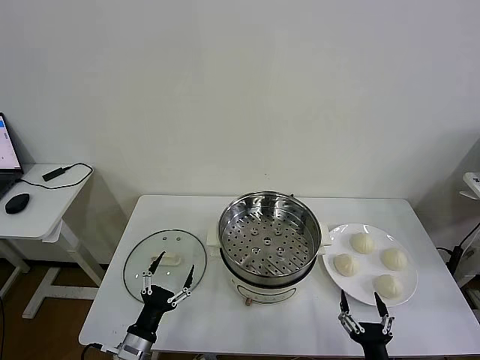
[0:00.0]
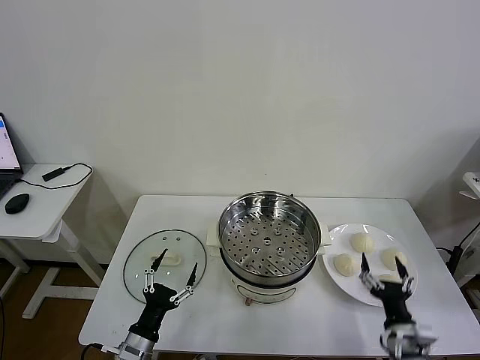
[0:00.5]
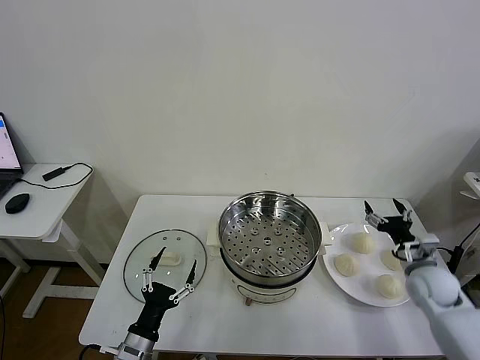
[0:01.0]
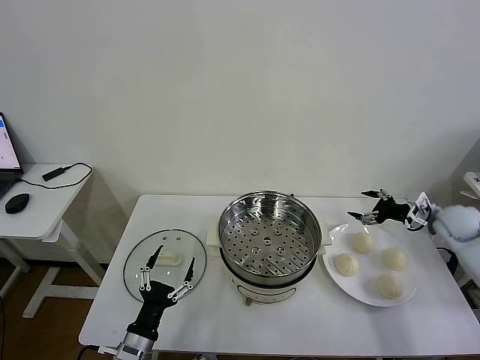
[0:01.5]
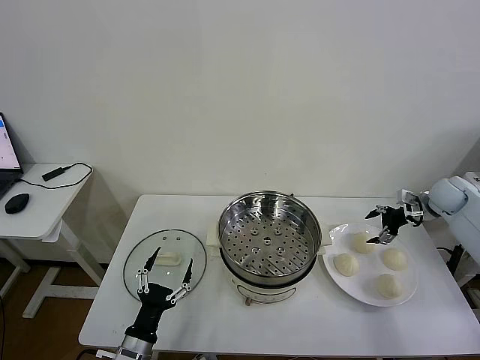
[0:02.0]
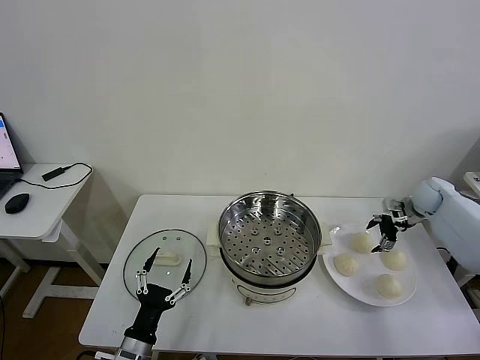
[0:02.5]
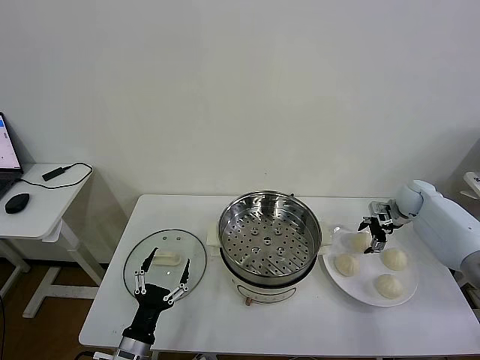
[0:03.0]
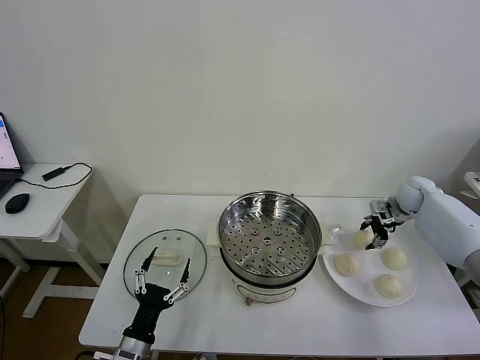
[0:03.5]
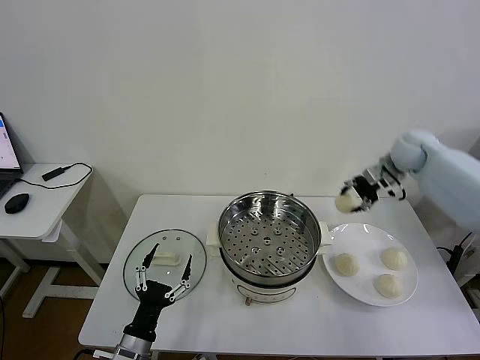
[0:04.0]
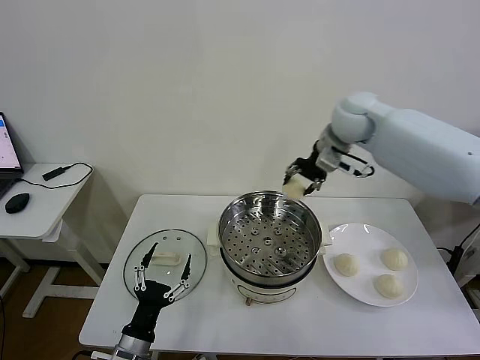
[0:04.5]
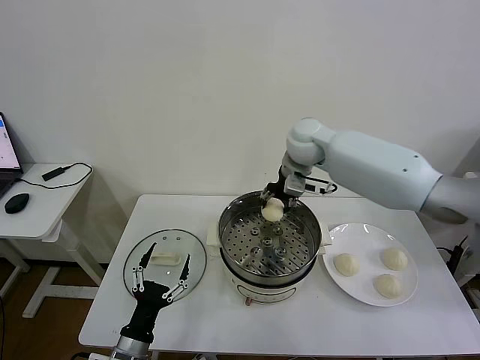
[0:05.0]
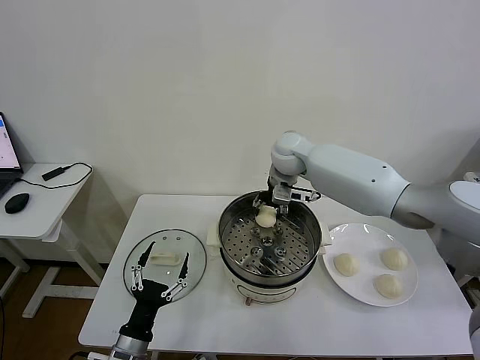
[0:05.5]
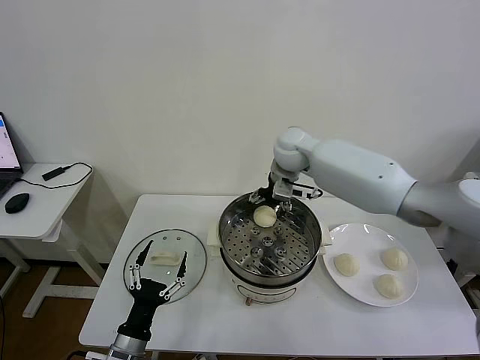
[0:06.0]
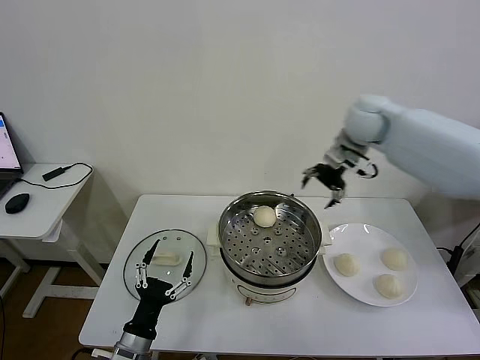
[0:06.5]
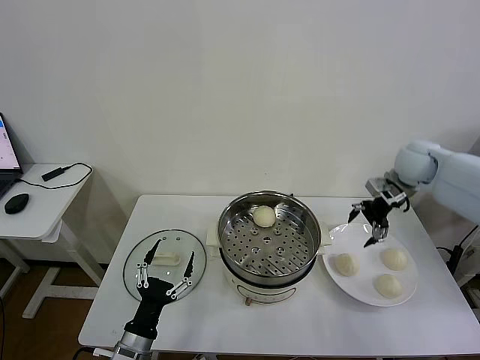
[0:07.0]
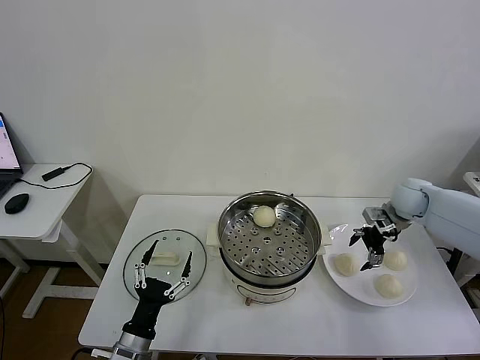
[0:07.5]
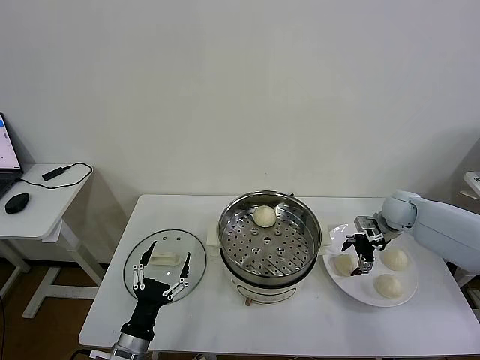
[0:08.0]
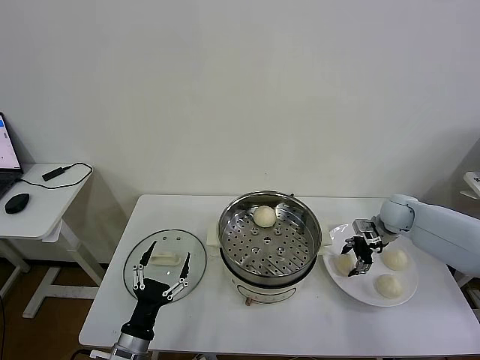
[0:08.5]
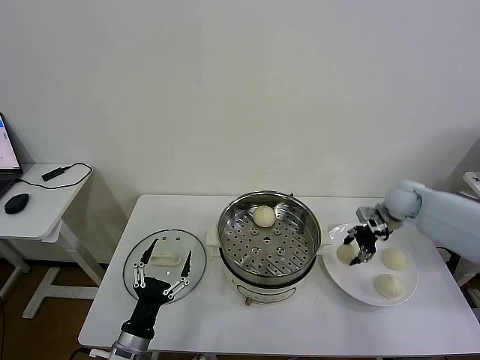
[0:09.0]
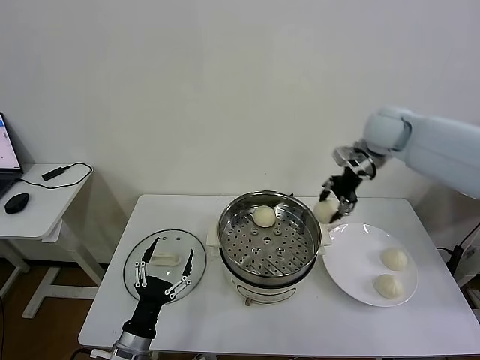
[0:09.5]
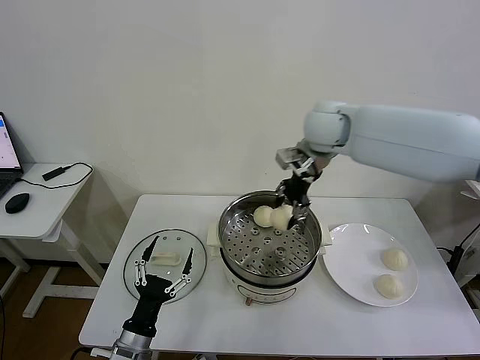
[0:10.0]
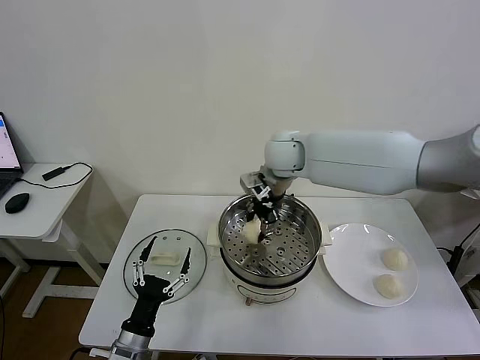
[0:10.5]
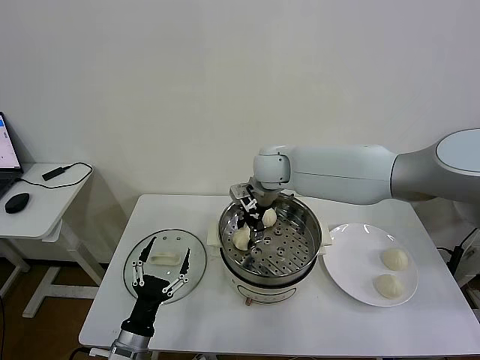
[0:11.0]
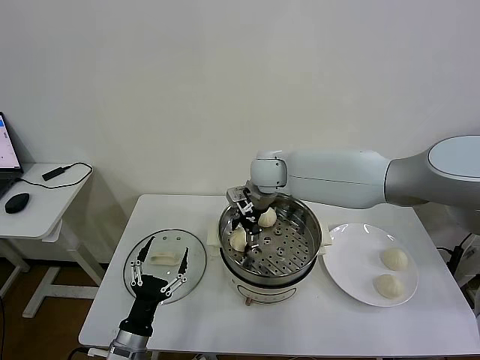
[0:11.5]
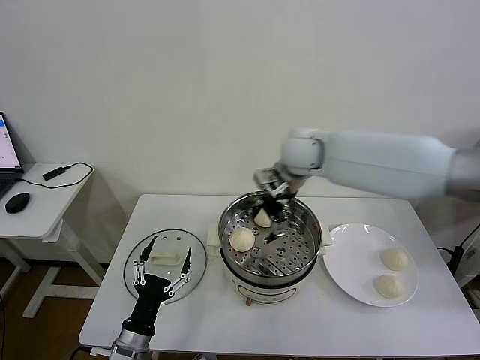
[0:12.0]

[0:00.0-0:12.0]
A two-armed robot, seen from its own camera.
Task of the whole recording: take steamed baozi put them in steamer then cover it.
Step, 0:00.0 to 0:03.0: Grasp the baozi in the plate with right gripper.
Step, 0:03.5 to 0:05.5: Place the baozi on the steamer with right gripper.
Step, 0:06.0 to 0:08.5: Grasp the baozi in the plate with right gripper.
Step, 0:09.0 to 0:11.5: Place the baozi on the steamer with right gripper.
0:02.0 to 0:04.0: The right gripper is displaced to the left and upward by some 20 cm, and closes.
0:04.0 to 0:06.0: The right gripper goes approximately 25 cm to the left, and opens its fingers.
0:06.0 to 0:08.0: The right gripper is displaced to the right and downward by about 35 cm.
0:08.0 to 0:10.0: The right gripper is displaced to the left and upward by some 35 cm, and closes.
0:10.0 to 0:12.0: The right gripper goes downward and returns, about 10 cm each way, and opens its fingers.

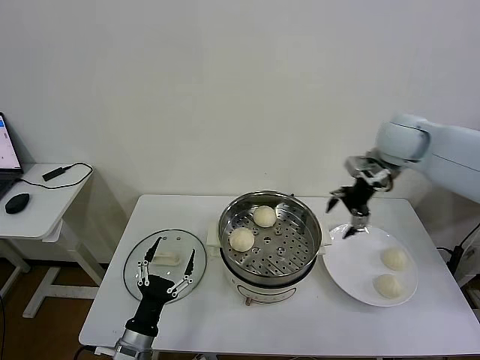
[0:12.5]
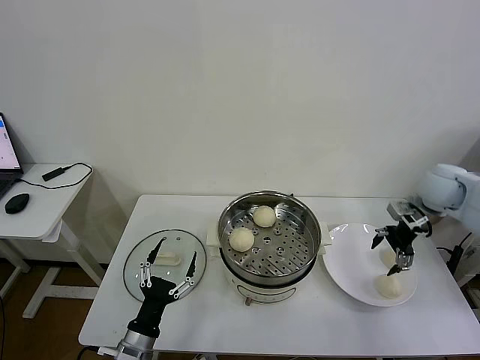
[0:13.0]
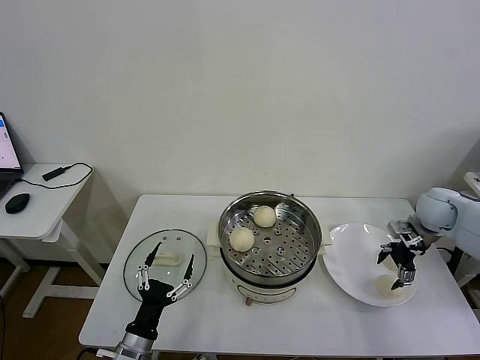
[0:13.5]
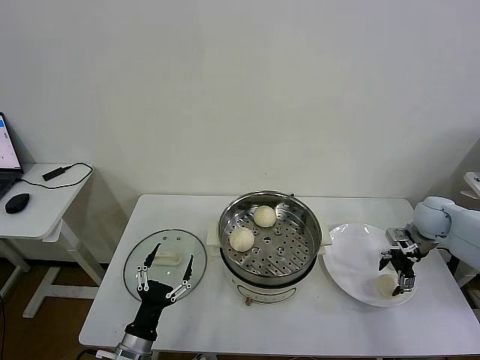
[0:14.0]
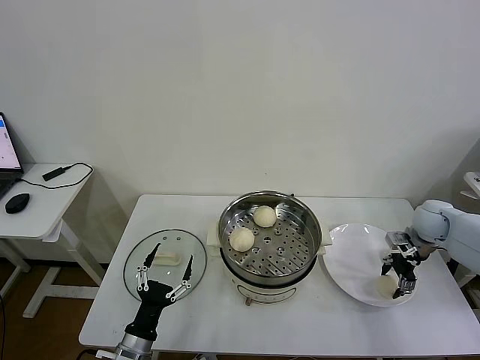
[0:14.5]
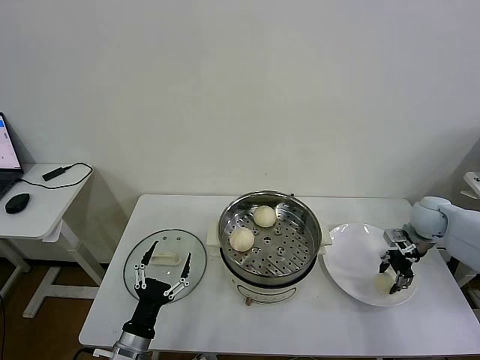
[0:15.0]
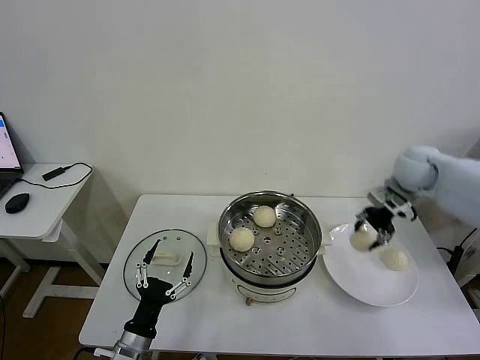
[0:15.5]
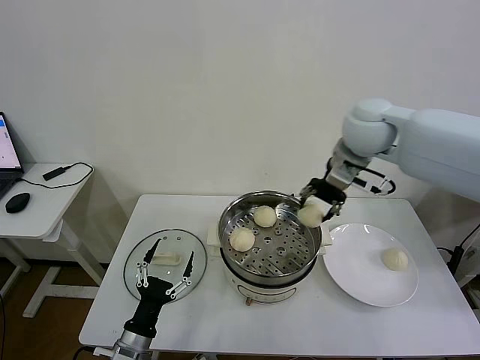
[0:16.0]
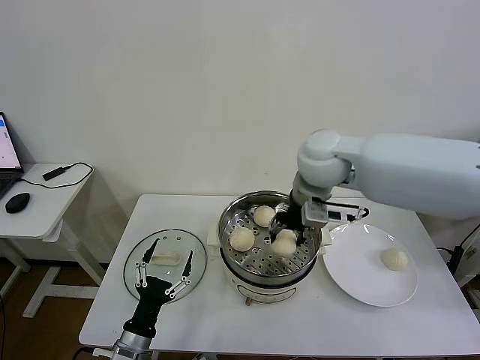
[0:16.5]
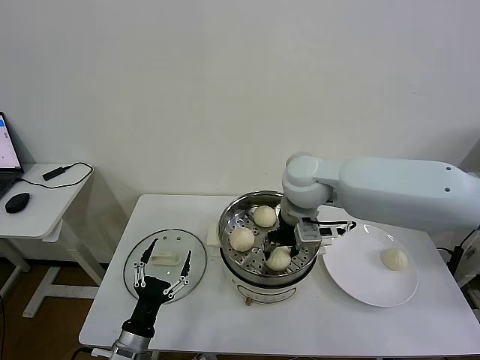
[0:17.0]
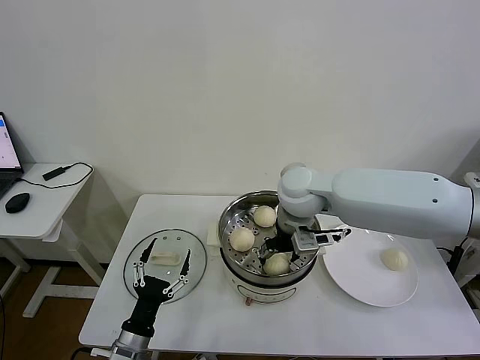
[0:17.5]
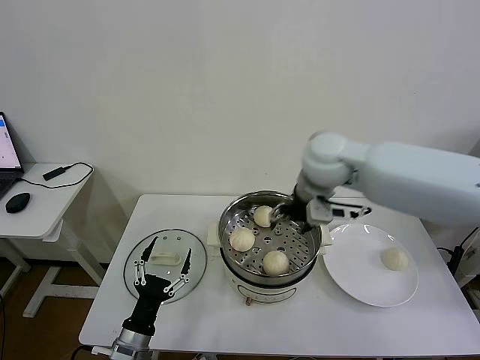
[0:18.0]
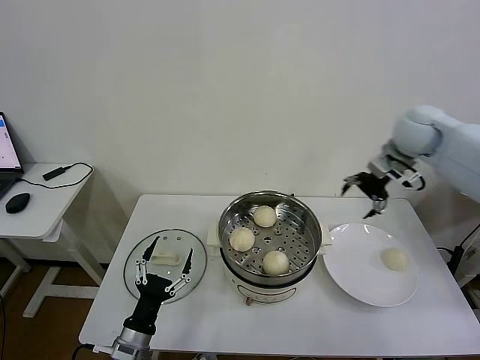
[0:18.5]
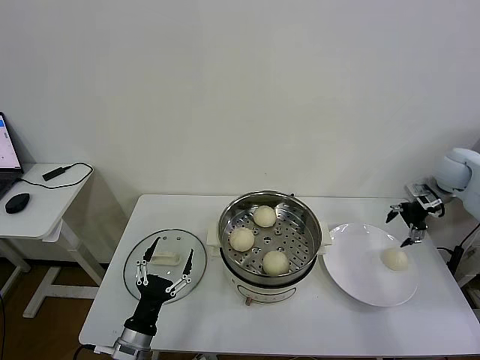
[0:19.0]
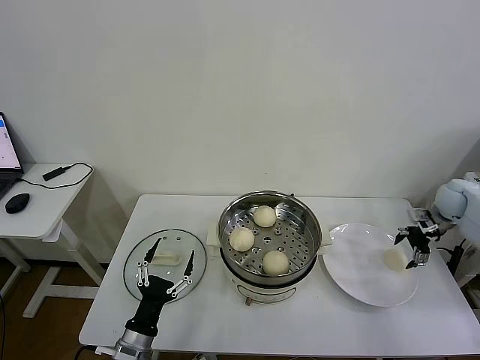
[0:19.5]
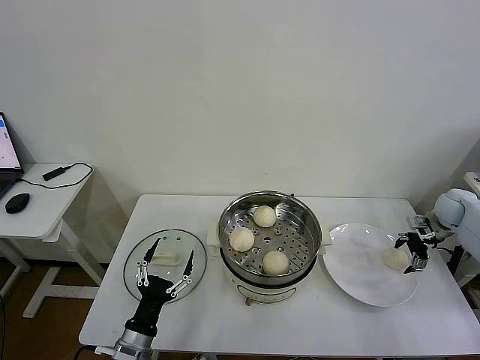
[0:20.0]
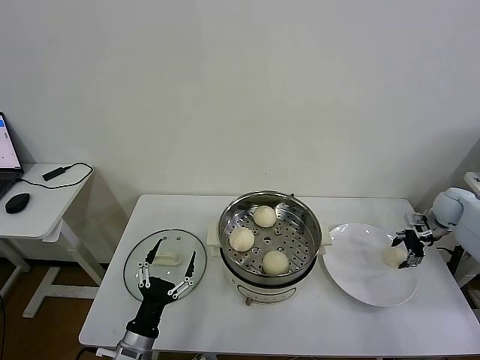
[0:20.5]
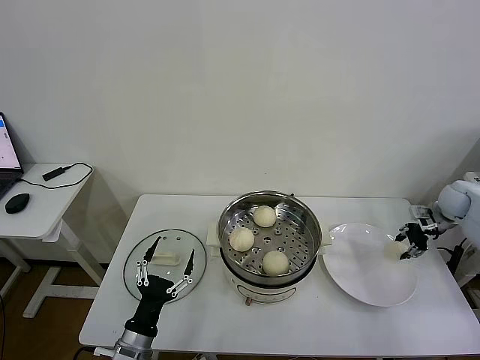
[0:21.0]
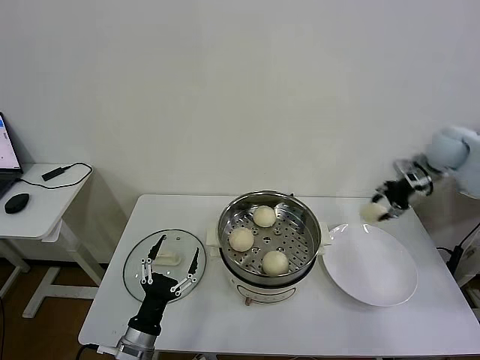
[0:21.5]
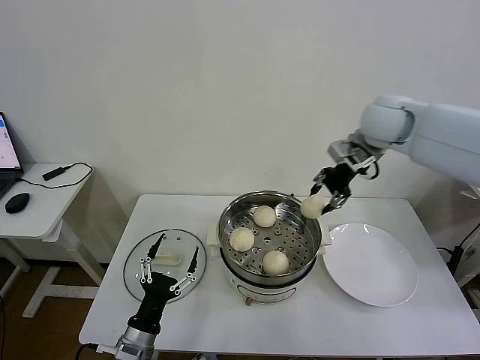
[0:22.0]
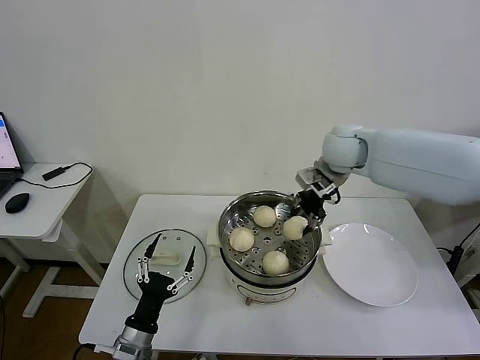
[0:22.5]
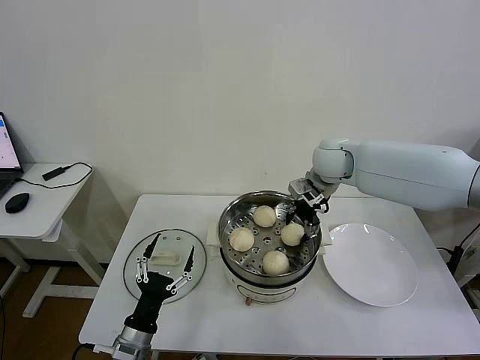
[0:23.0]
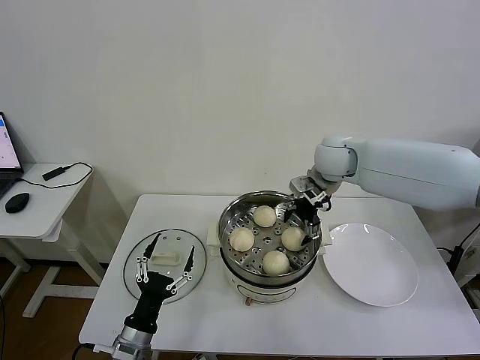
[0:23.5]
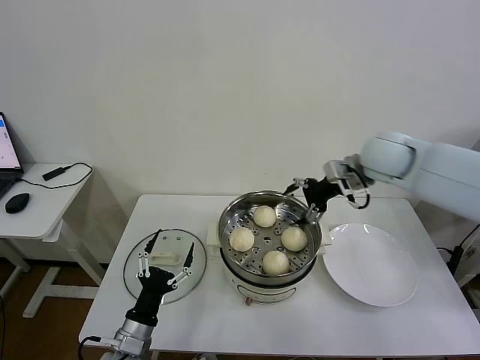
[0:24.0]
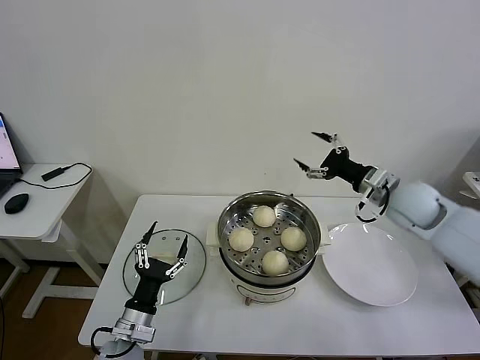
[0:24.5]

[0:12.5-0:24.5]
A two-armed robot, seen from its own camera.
Task of the whole recording: take steamed baozi put them in steamer then cover it.
Step, 0:12.5 to 0:14.5: Grasp the baozi in the plate with right gripper.
Step, 0:15.0 to 0:17.5: Place the baozi on the steamer with right gripper.
Step, 0:18.0 to 0:20.5: Grasp the baozi in the plate with right gripper.
Step, 0:21.0 to 0:23.0: Place the baozi on the steamer with right gripper.
0:12.5 to 0:14.5: The right gripper moves downward and to the right, about 25 cm, and closes.
0:14.5 to 0:16.5: The right gripper shifts some 40 cm to the left and upward.
0:16.5 to 0:18.5: The right gripper shifts roughly 25 cm to the right, and opens up.
0:18.5 to 0:20.5: The right gripper moves downward and to the right, some 25 cm, and closes its fingers.
0:20.5 to 0:22.5: The right gripper goes some 40 cm to the left and upward, and closes.
0:22.5 to 0:24.5: The right gripper goes about 20 cm to the right, backward and downward, and opens its fingers.

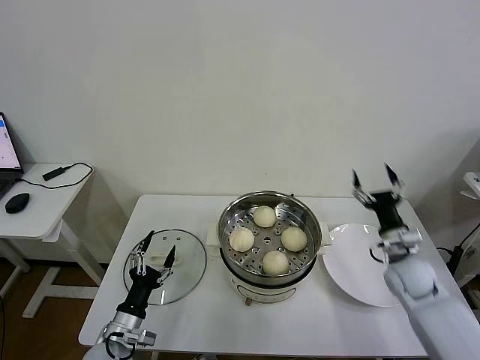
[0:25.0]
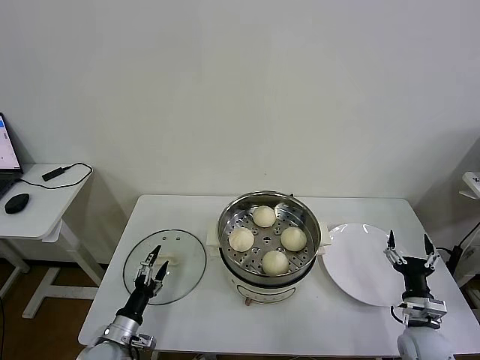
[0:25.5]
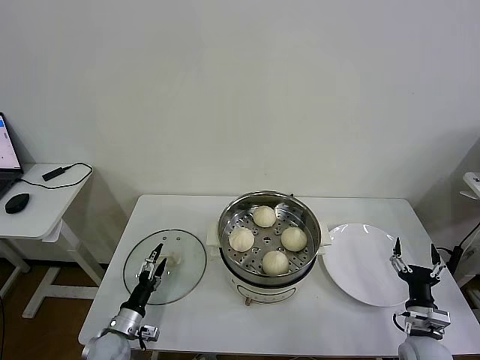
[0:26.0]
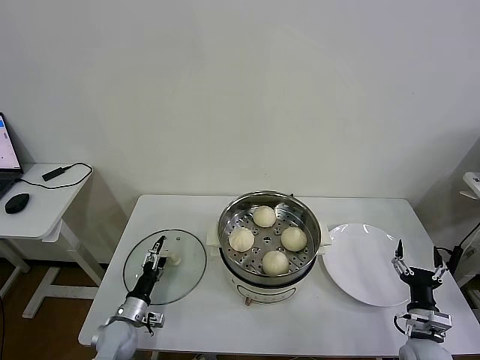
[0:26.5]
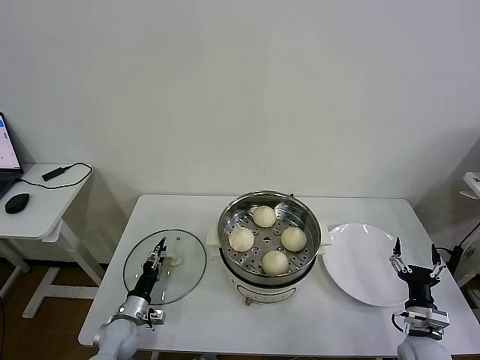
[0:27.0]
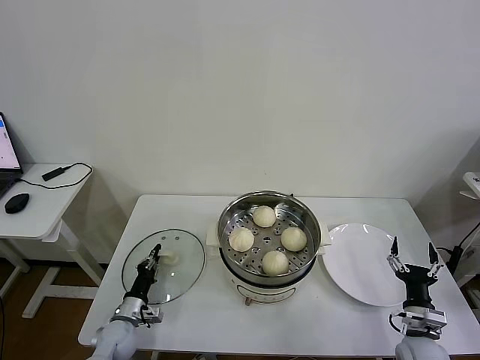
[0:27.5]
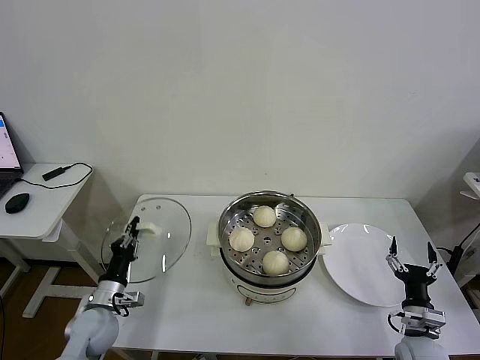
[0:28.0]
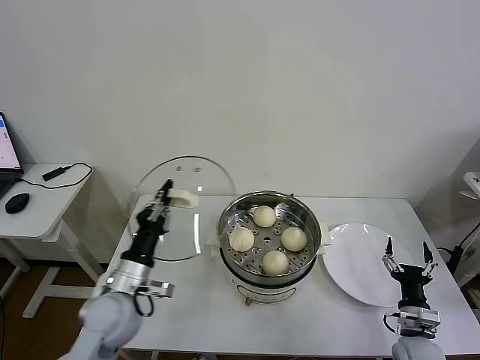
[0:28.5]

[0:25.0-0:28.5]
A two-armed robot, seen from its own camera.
Task of the whole recording: take steamed baozi put them in steamer then cover it.
Step, 0:25.0 to 0:27.5: Grasp the pot lid with left gripper.
0:25.0 to 0:27.0: The left gripper shifts approximately 10 cm downward and forward, and closes its fingers; the right gripper travels backward and downward by some 20 cm.
0:27.0 to 0:28.5: The left gripper is displaced upward by about 20 cm, and closes.
